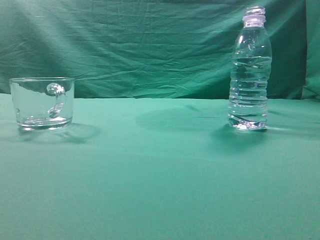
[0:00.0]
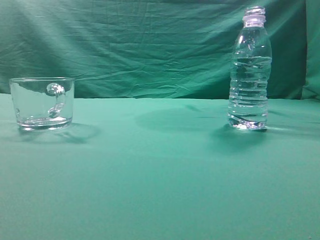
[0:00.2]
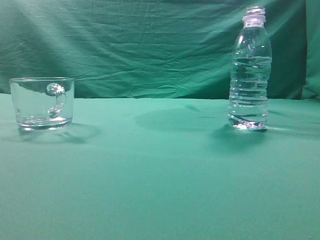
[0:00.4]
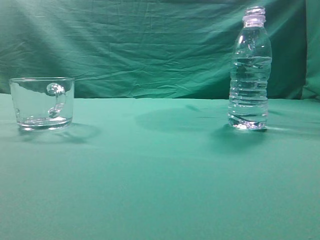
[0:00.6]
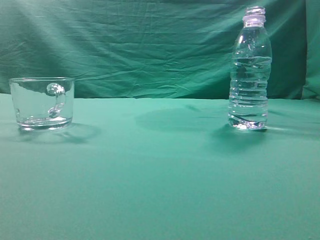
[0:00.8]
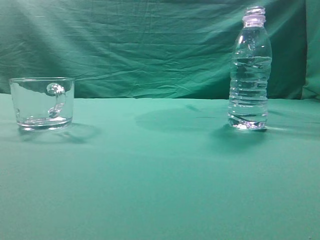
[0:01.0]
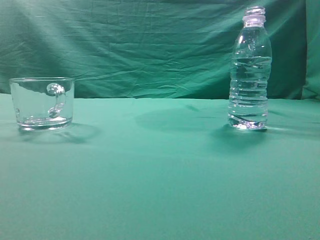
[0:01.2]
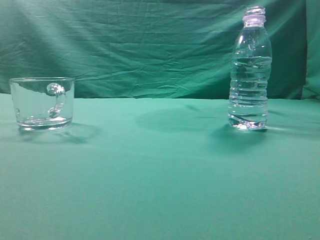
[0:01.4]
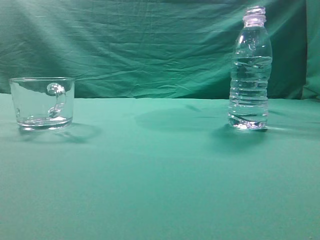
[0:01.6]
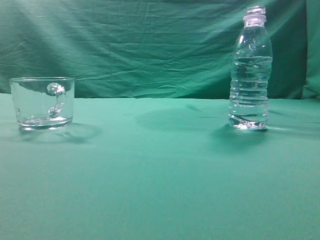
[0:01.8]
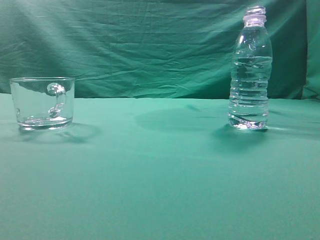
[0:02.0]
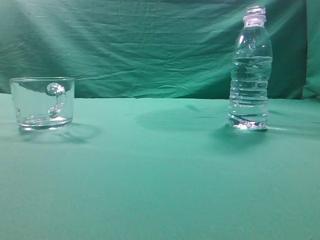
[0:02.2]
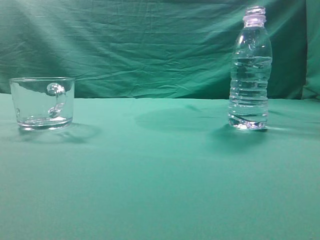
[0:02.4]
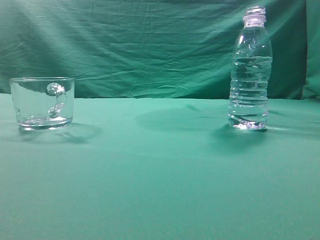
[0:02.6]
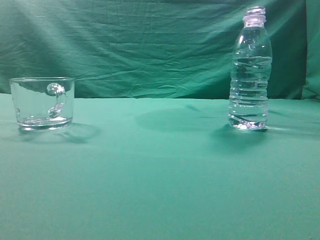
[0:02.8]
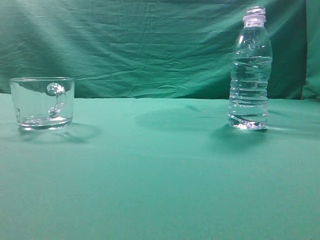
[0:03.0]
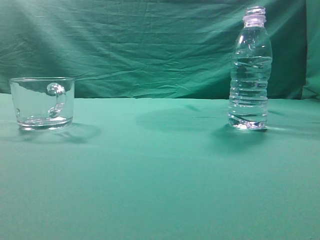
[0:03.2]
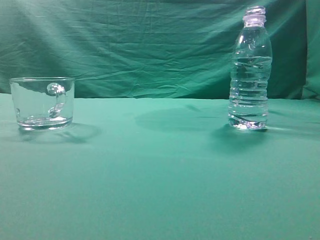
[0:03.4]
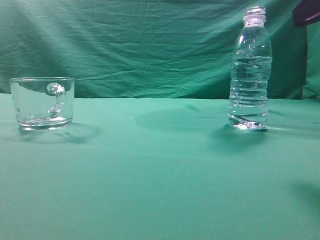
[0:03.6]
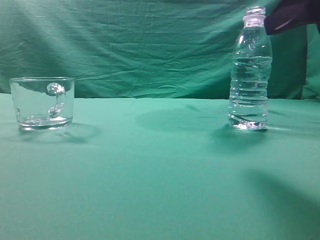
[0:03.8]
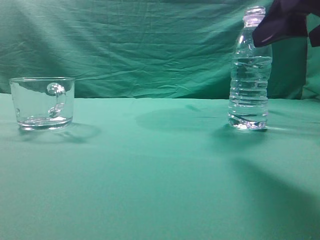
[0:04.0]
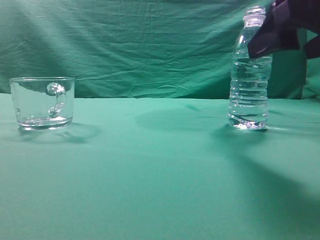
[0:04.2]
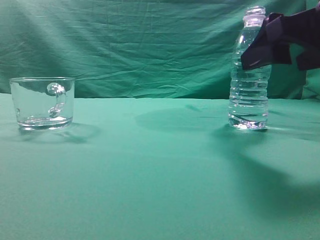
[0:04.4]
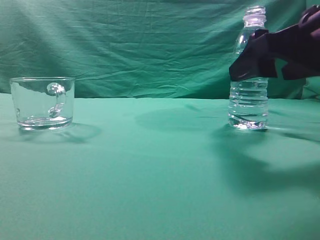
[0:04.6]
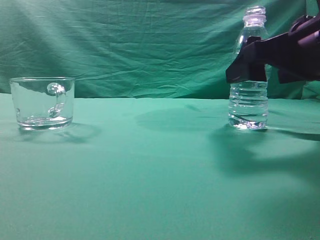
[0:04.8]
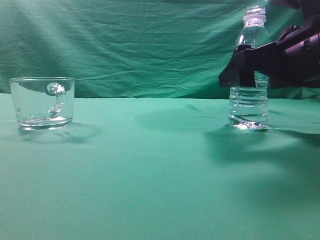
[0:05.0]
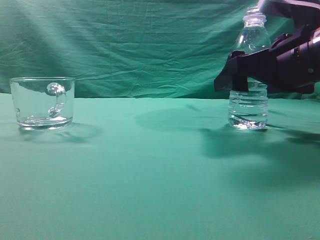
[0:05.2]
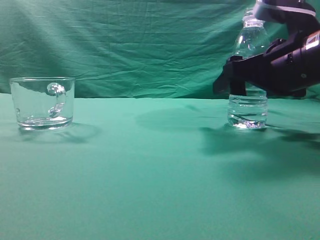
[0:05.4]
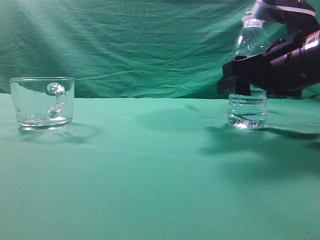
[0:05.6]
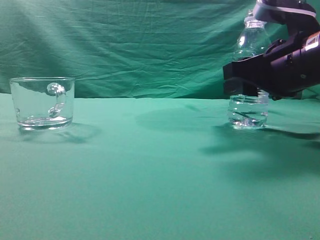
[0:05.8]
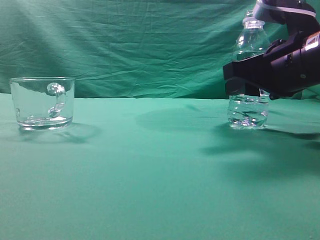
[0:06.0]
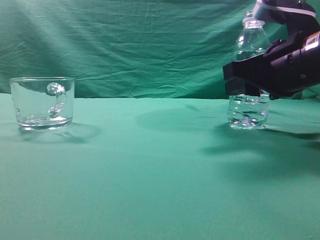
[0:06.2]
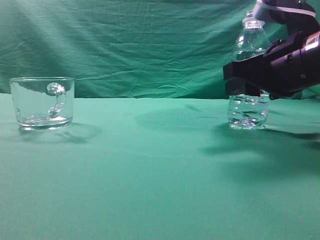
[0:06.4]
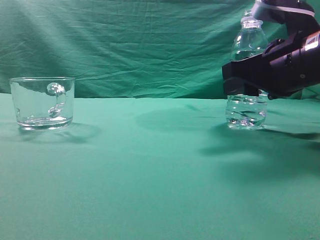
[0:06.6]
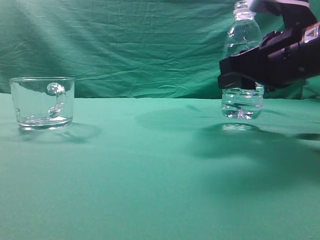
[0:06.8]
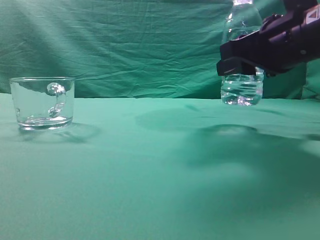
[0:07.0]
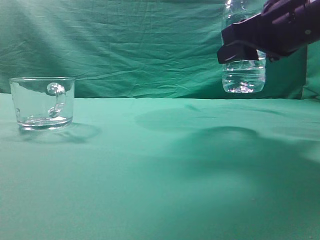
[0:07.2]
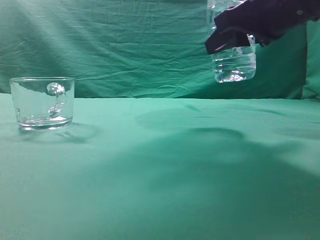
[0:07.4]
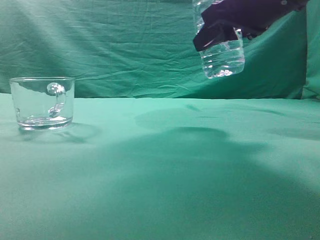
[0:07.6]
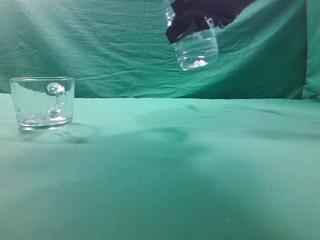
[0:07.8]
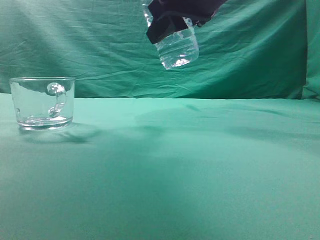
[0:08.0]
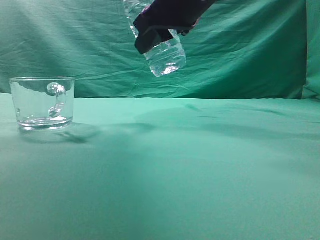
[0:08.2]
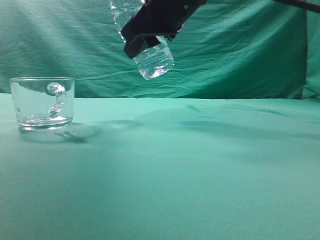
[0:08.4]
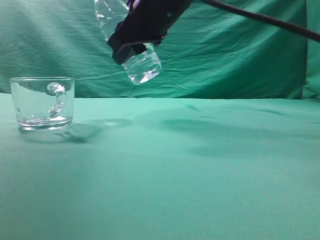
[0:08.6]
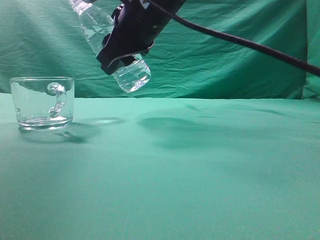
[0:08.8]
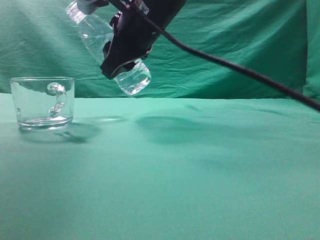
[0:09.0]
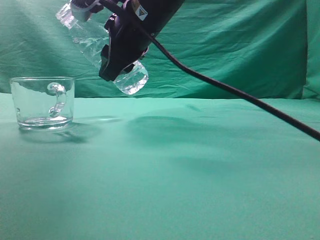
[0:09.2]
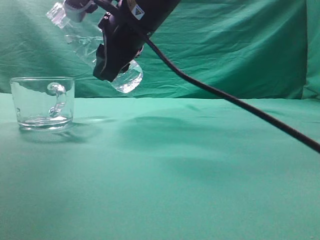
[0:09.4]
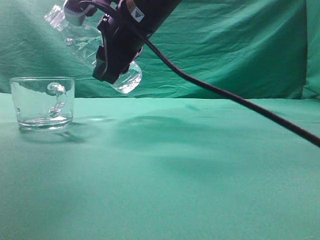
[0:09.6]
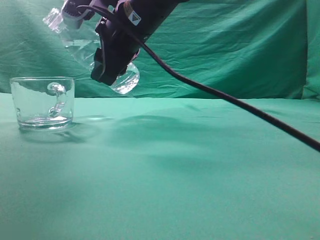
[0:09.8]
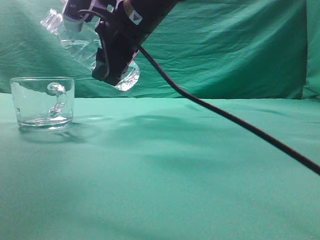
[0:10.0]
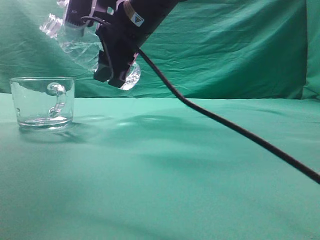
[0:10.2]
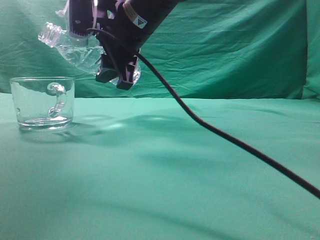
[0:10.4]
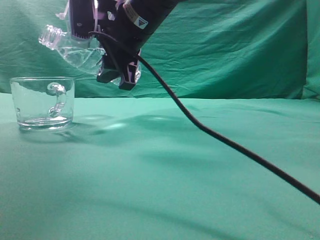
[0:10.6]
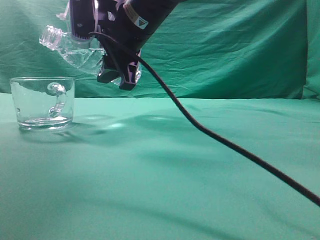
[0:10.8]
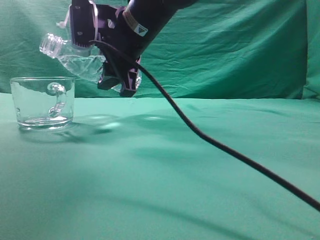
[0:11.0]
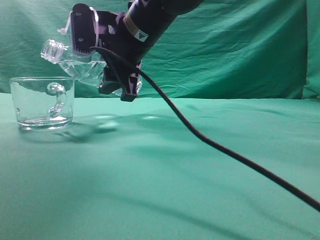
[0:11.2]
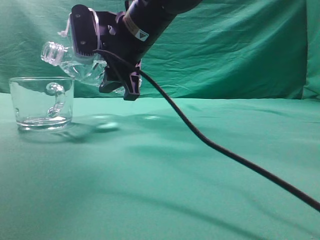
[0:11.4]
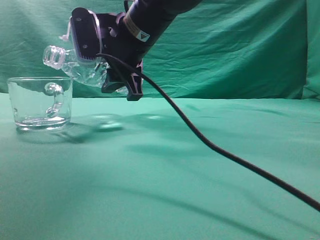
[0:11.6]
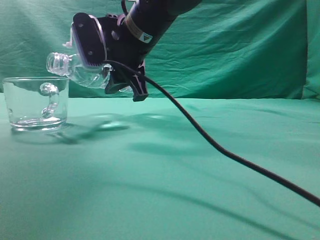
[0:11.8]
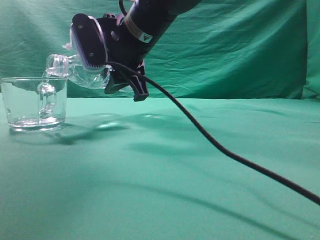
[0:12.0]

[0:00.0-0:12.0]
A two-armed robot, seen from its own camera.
Task of the whole recording: pick up the water bottle and pour the water in it into the glass.
Step, 0:00.0 to 0:07.0: Grasp the mineral water bottle.
0:03.0 to 0:04.4: The right gripper is displaced forward, downward and to the left by some 15 cm, and opens its fingers.
0:04.4 to 0:06.0: The right gripper heads forward, covering approximately 5 cm, and closes.
0:06.0 to 0:07.6: The right gripper travels upward by some 10 cm.
0:07.6 to 0:09.0: The right gripper shifts approximately 15 cm to the left and forward.
0:10.4 to 0:12.0: The grippers move only a little.

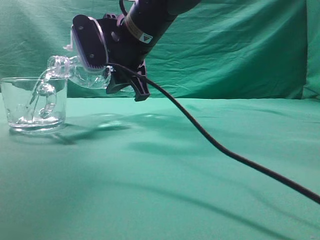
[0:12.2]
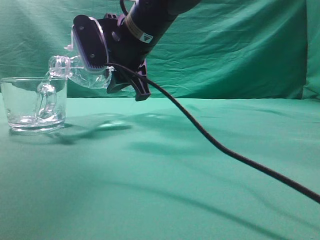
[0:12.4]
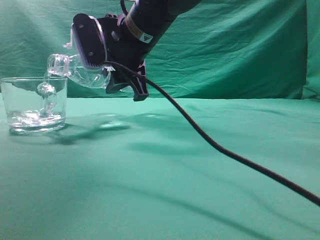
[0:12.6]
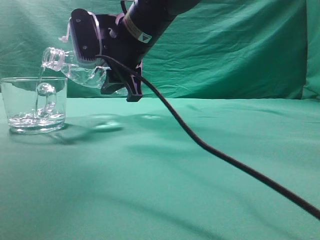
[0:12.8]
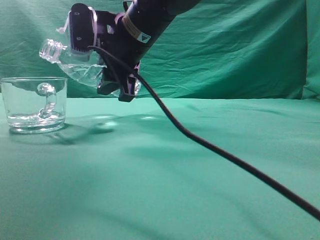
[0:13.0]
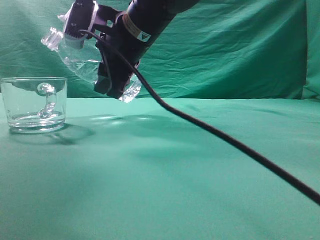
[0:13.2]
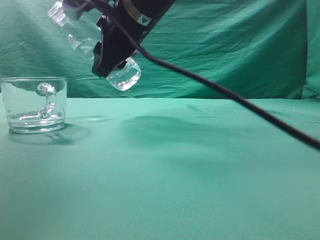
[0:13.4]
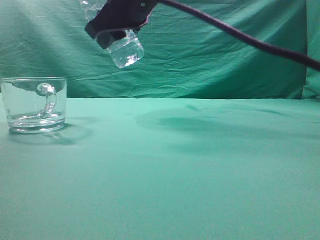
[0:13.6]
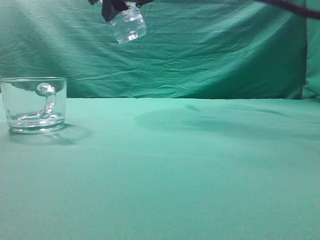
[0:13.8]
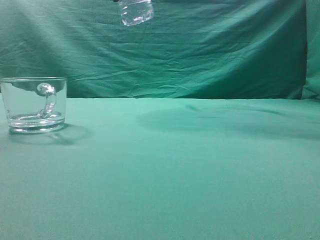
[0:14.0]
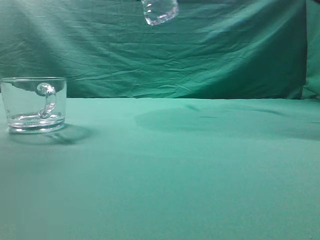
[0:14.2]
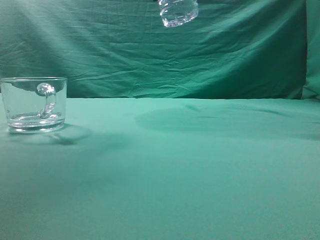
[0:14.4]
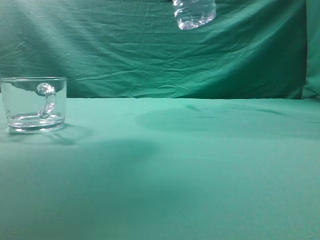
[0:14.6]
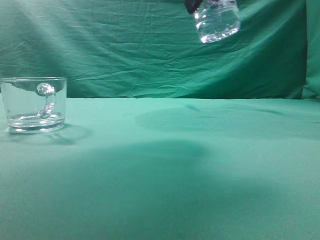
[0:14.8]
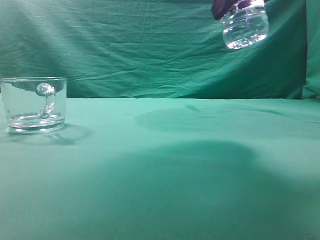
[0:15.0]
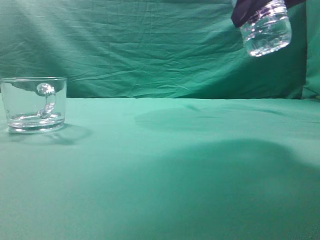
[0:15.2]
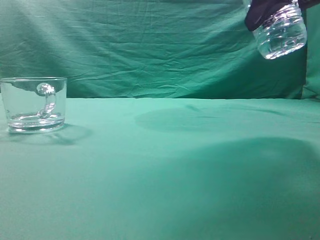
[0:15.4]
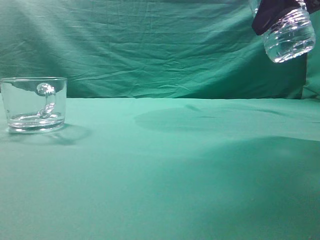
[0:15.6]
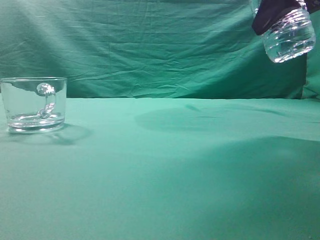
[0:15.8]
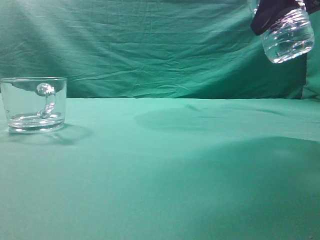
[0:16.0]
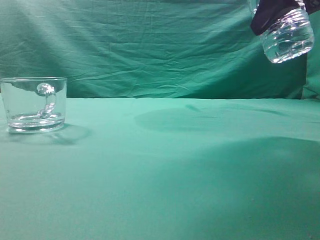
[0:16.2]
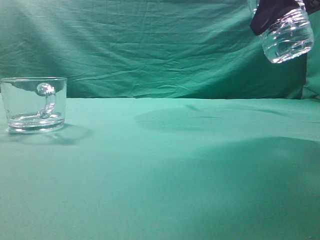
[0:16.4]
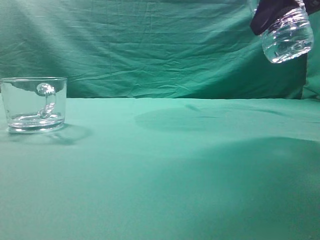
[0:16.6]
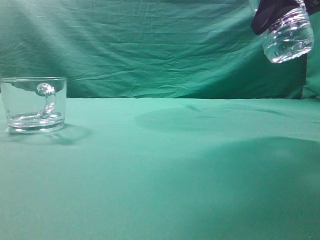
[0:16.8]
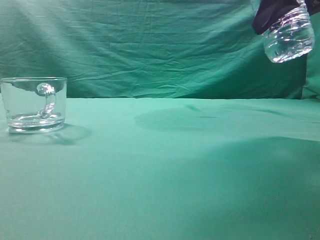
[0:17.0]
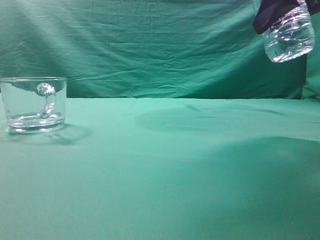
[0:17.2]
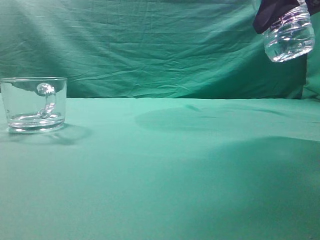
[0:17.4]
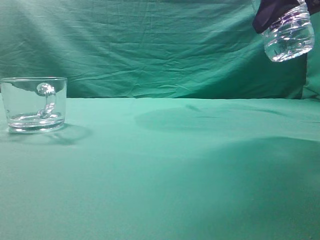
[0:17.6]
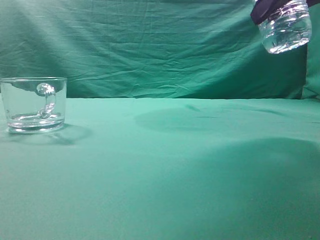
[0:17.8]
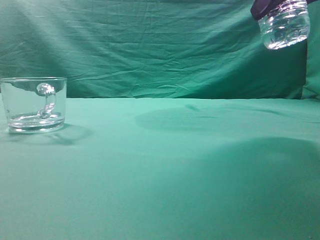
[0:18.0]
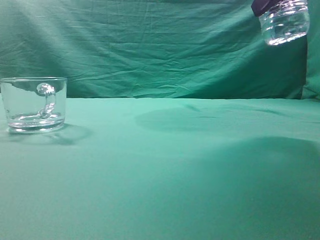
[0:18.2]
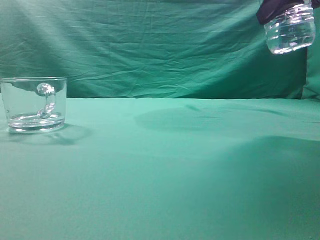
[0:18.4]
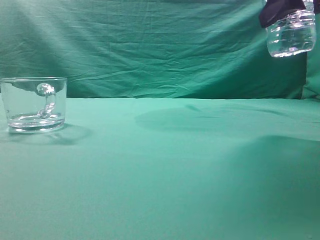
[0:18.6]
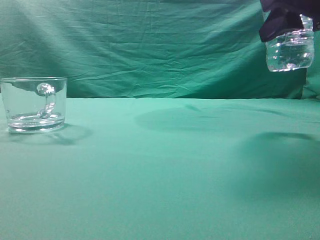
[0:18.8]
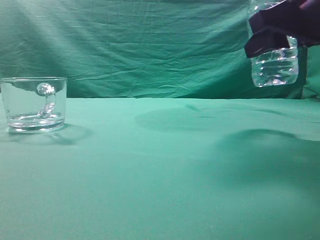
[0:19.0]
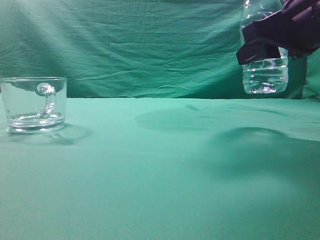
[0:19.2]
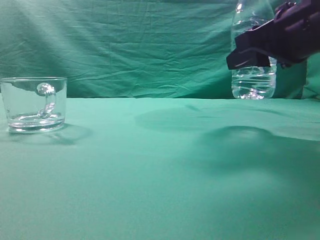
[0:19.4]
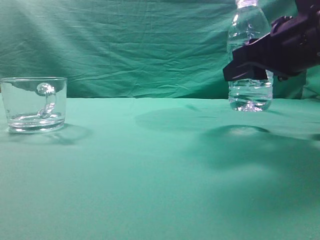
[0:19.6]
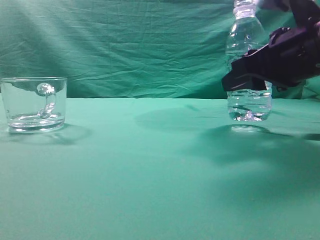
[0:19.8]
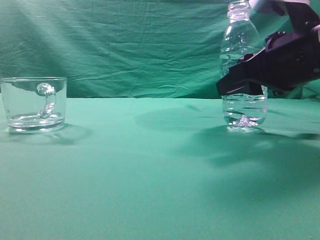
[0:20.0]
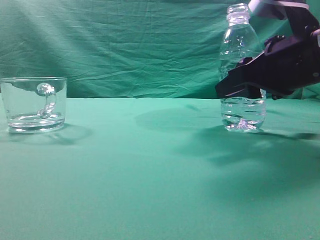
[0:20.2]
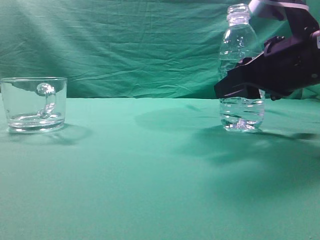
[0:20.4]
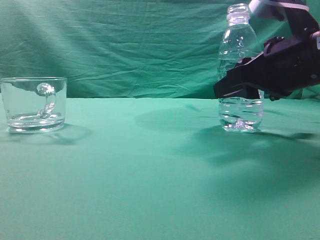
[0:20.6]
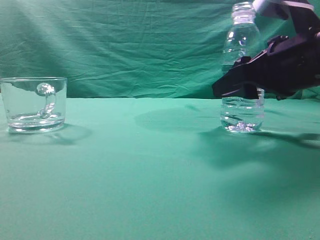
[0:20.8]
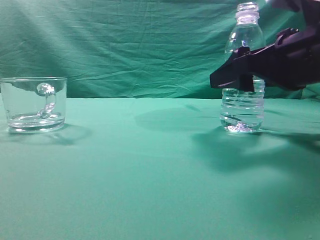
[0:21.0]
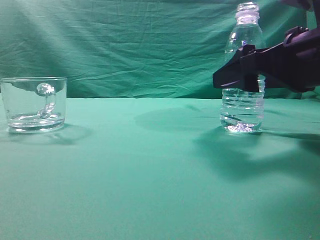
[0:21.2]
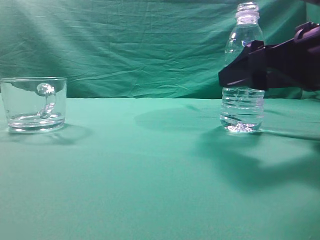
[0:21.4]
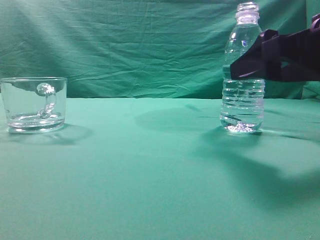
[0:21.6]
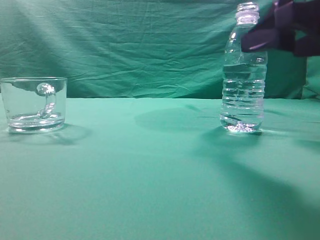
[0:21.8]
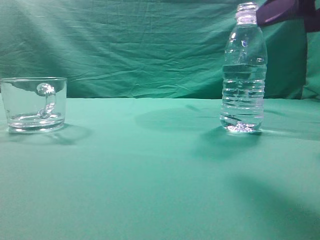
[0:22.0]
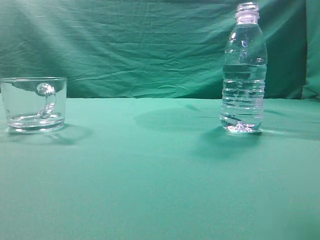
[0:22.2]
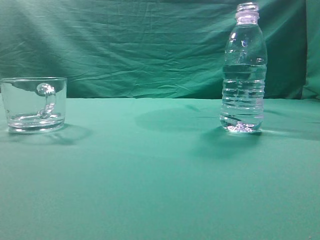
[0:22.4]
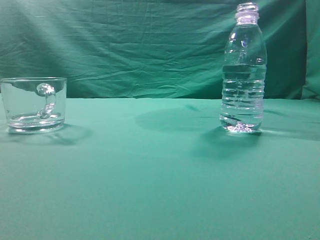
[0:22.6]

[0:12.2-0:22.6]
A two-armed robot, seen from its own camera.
Task of the whole recording: pick up the water bottle and pour the water in it into the glass.
0:12.2 to 0:13.6: The right gripper moves upward, approximately 5 cm.
0:13.6 to 0:15.2: The right gripper shifts roughly 20 cm to the right and backward.
0:15.2 to 0:18.2: The grippers move only a little.
0:18.2 to 0:19.6: The right gripper moves downward, approximately 10 cm.
0:19.6 to 0:21.2: The right gripper opens its fingers.
0:21.2 to 0:22.6: The right gripper goes some 20 cm upward, backward and to the right, and closes its fingers.
